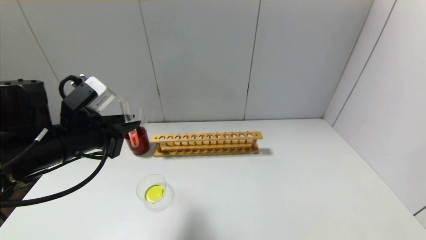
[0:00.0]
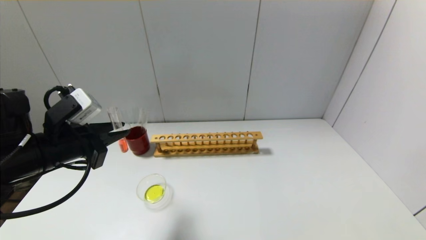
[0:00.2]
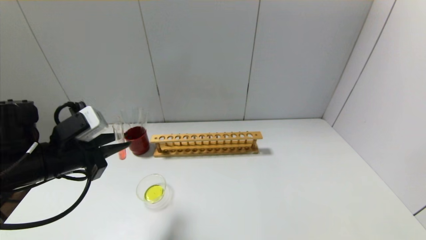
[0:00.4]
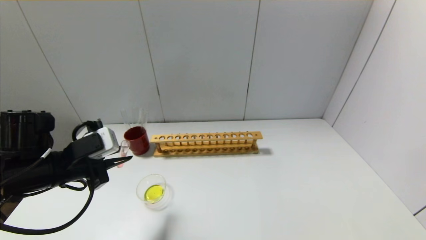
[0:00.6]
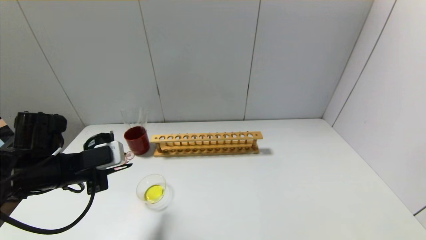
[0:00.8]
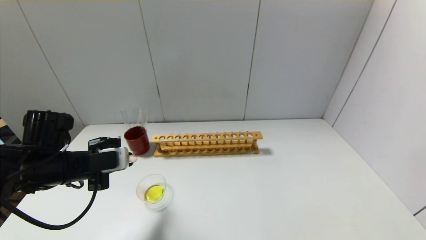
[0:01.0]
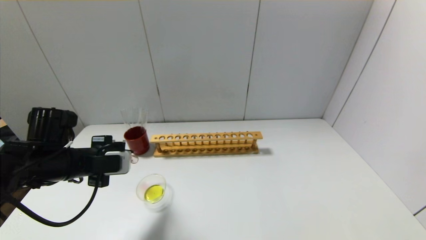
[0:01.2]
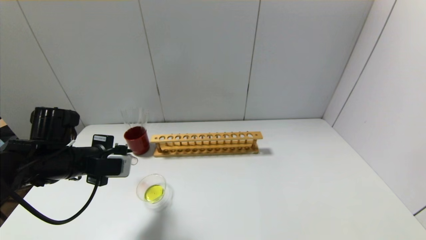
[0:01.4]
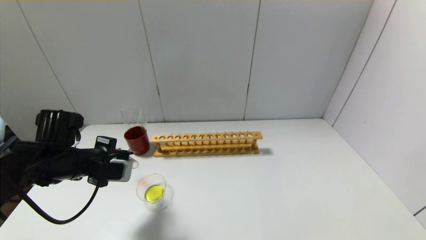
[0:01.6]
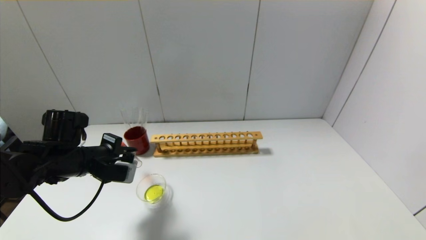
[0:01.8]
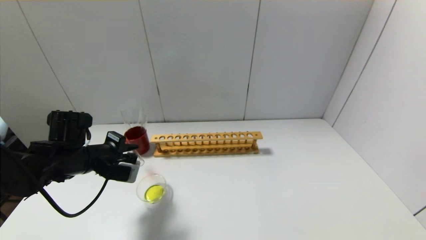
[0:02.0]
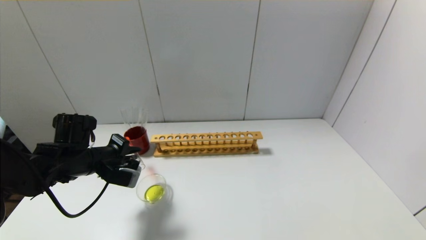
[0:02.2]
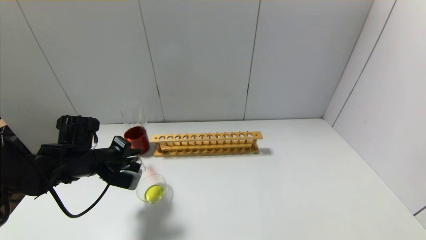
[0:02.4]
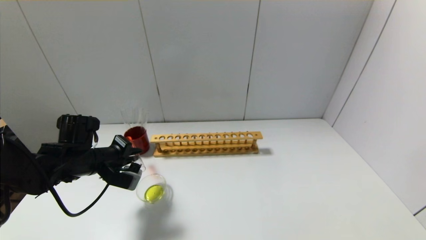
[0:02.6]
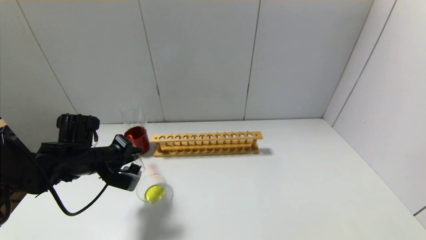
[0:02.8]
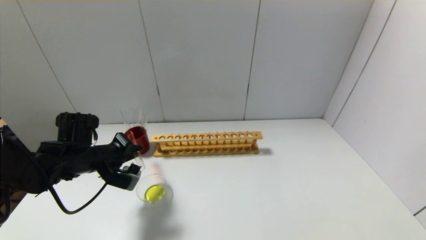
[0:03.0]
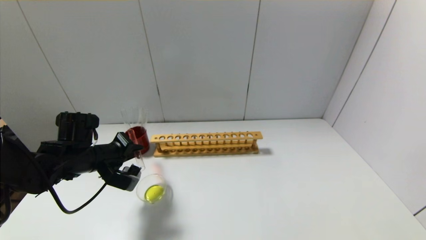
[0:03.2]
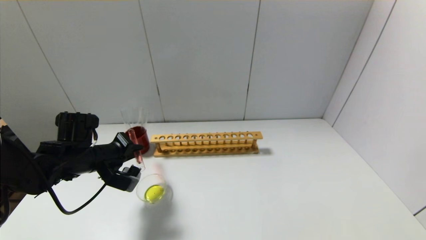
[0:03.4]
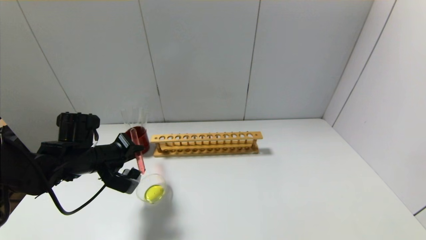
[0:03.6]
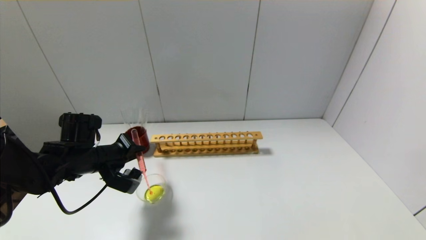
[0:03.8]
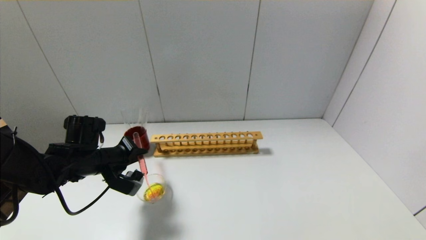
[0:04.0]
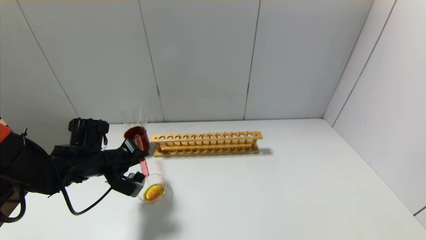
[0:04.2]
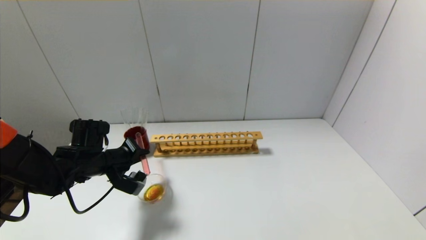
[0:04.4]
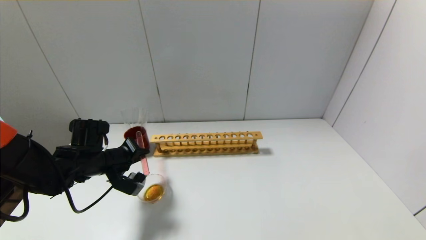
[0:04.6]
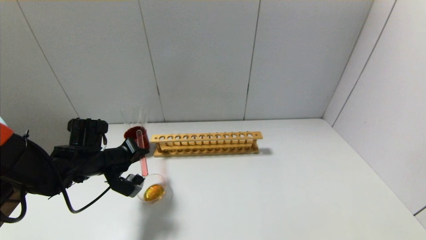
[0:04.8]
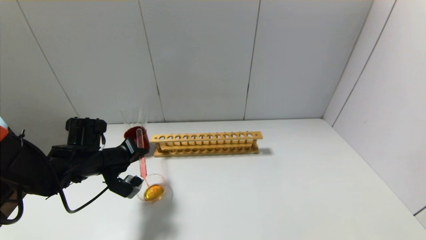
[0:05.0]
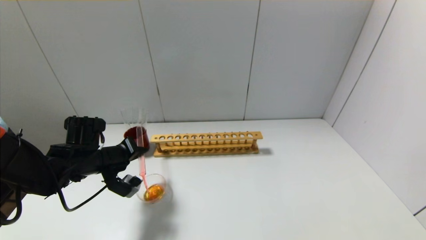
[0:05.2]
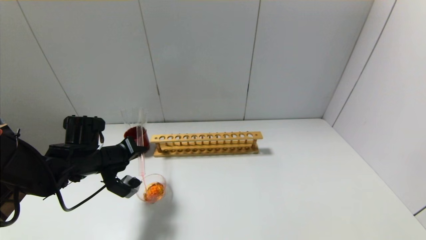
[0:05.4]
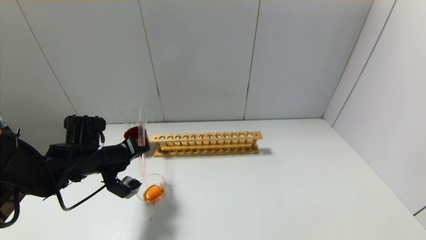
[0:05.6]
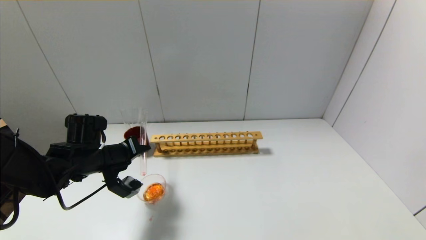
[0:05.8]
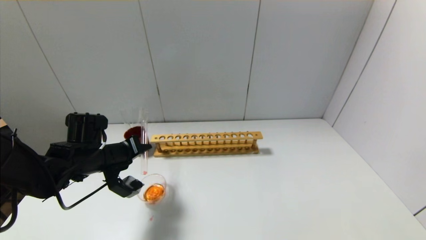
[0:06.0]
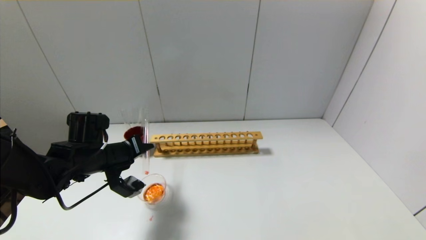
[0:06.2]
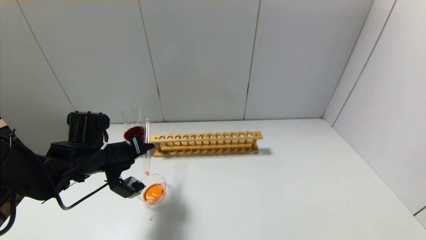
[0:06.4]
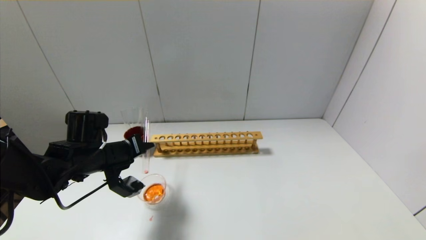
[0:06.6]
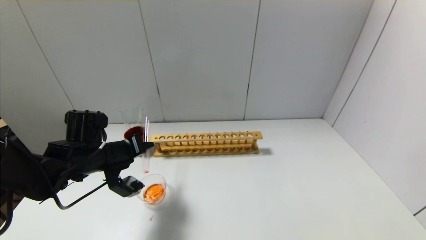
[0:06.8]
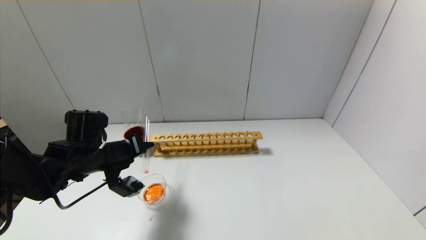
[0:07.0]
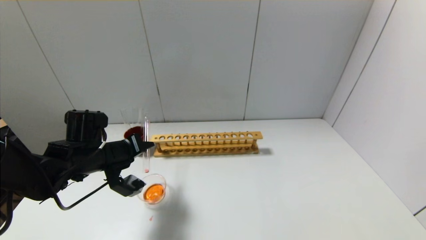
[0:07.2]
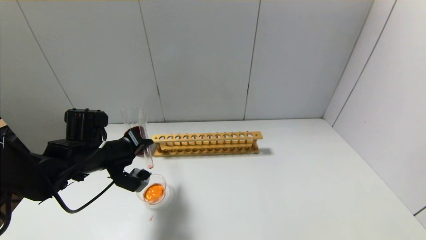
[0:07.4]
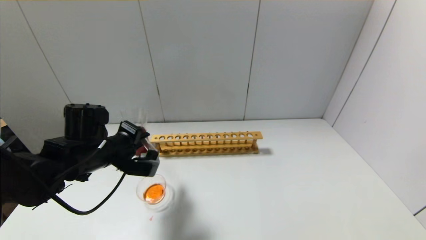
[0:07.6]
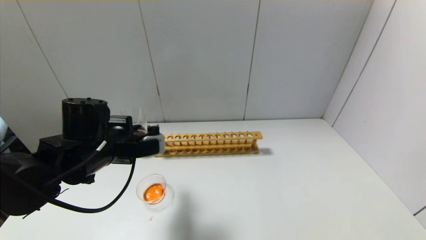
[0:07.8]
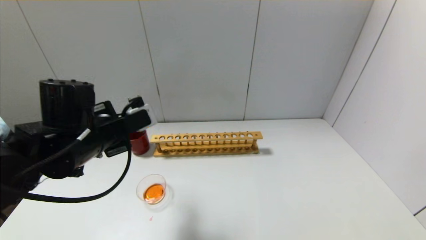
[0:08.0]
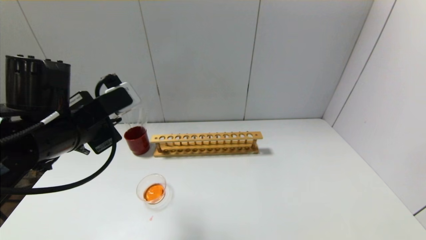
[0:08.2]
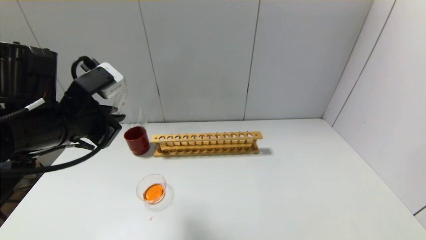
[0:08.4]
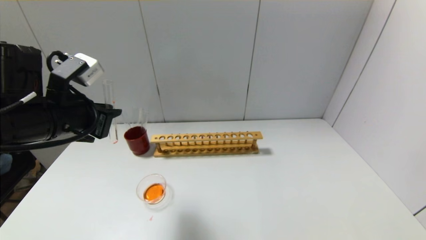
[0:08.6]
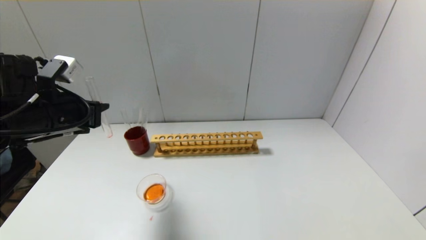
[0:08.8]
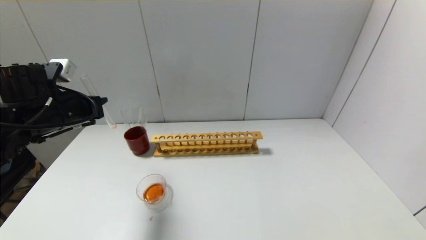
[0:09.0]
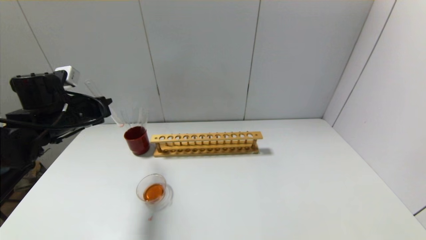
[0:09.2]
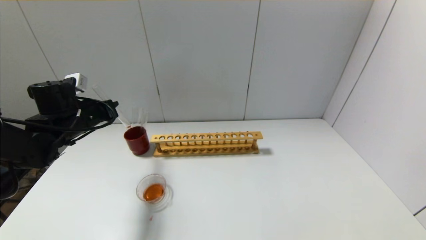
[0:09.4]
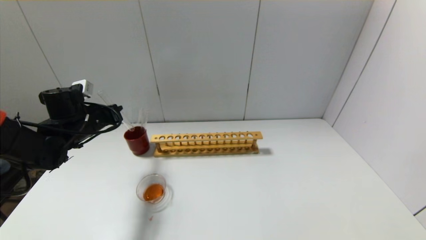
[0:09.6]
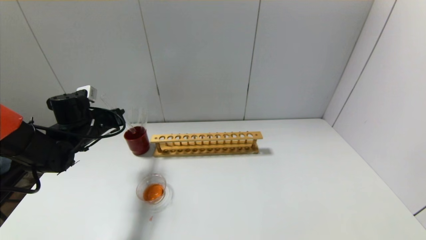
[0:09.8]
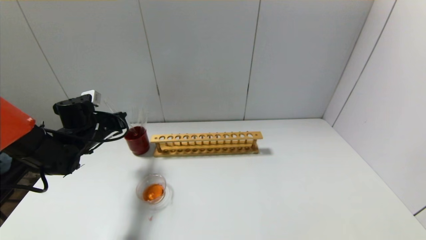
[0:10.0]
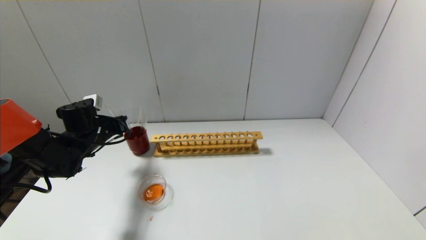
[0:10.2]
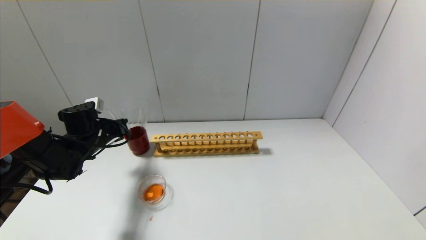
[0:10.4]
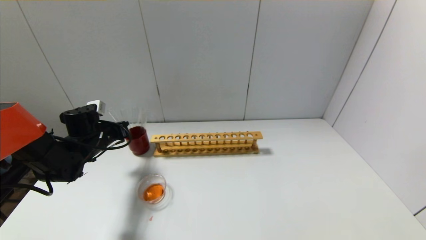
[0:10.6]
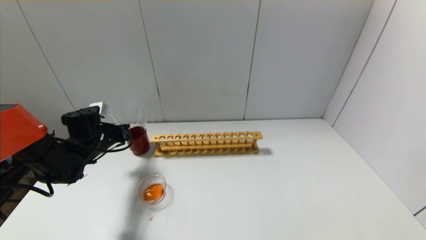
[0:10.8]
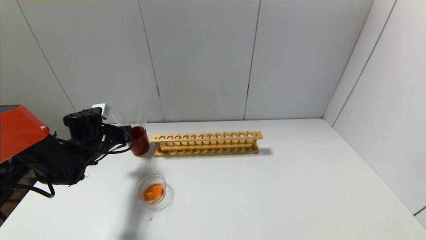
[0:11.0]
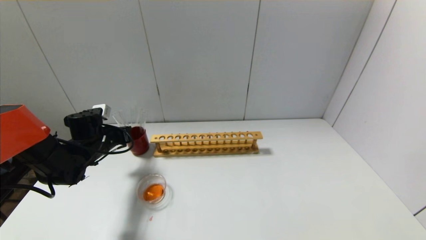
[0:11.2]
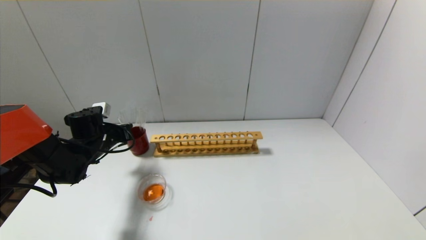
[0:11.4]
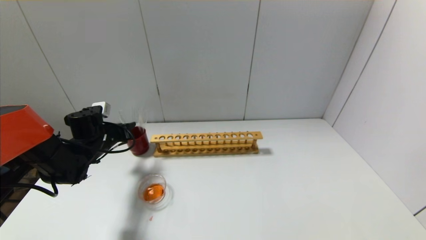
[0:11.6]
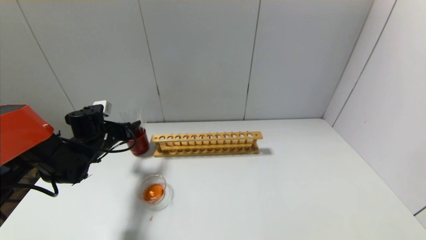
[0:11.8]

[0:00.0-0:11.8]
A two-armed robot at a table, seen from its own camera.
Step, 0:00.0 to 0:07.6: Pour the red reagent into the graduated cylinder with the left gripper.
Step, 0:07.8 to 0:11.6: Place the test tube into the brown cup with the left gripper.
0:00.0 to 0:01.4: The left gripper is displaced downward by approximately 5 cm.
0:03.0 to 0:04.4: The grippers make only small movements.
0:06.0 to 0:07.4: The grippers move only a little.
0:07.4 to 0:08.8: The left gripper travels upward and to the left by roughly 10 cm.
0:08.8 to 0:10.4: The left gripper moves downward and forward, about 15 cm.
0:10.4 to 0:11.8: The left gripper opens its fingers.

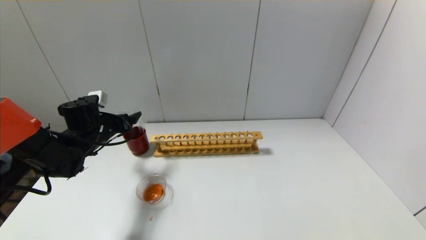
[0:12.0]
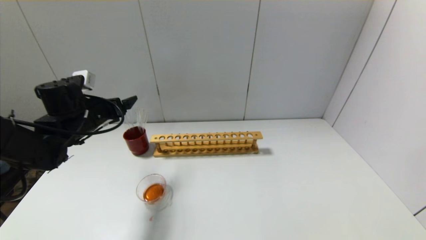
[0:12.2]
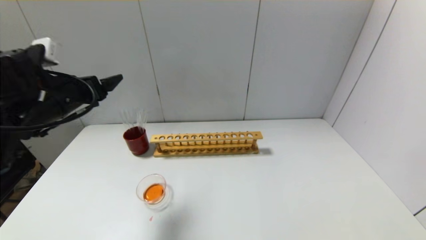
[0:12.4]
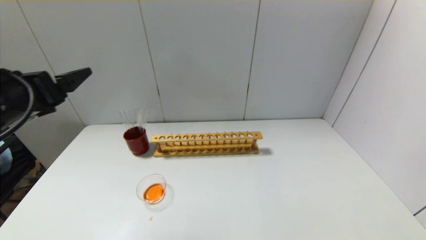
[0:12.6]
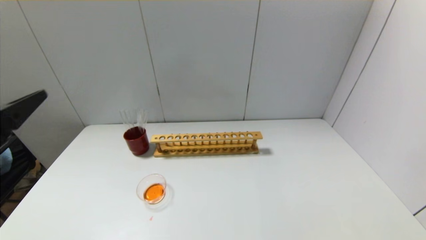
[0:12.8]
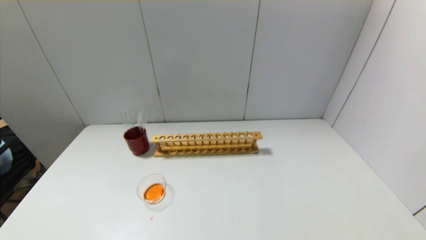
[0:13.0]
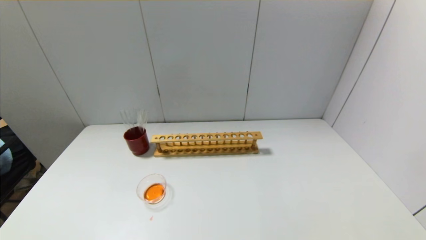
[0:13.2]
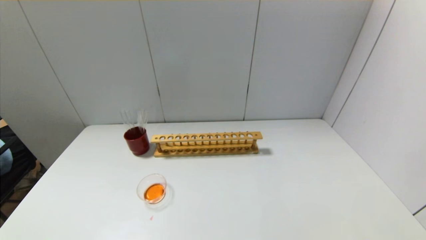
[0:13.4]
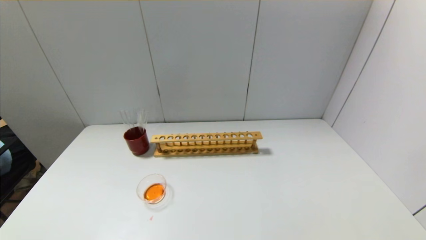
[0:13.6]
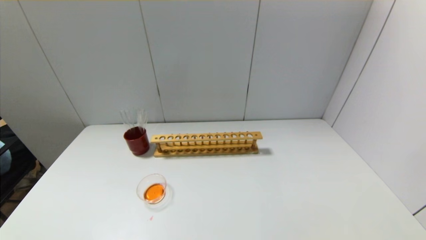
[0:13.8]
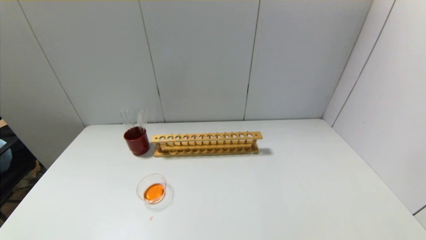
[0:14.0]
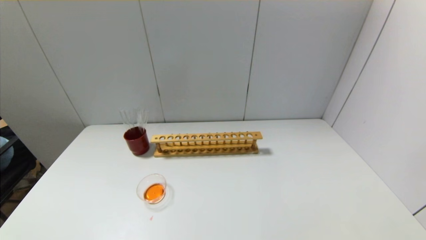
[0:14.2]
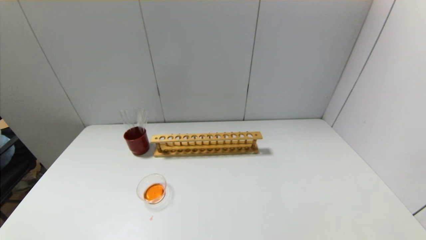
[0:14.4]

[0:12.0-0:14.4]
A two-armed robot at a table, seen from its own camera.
0:12.0 to 0:13.2: The left gripper moves backward, approximately 40 cm.
